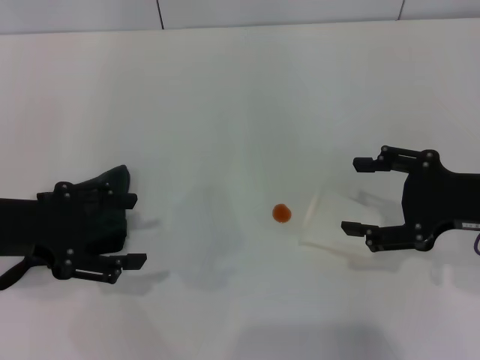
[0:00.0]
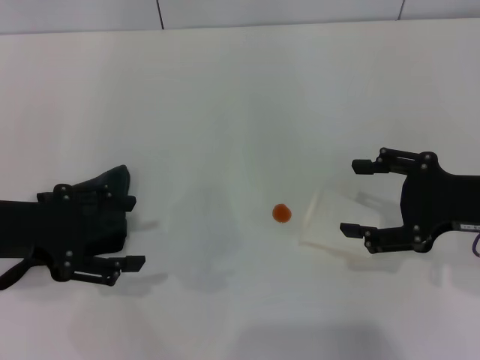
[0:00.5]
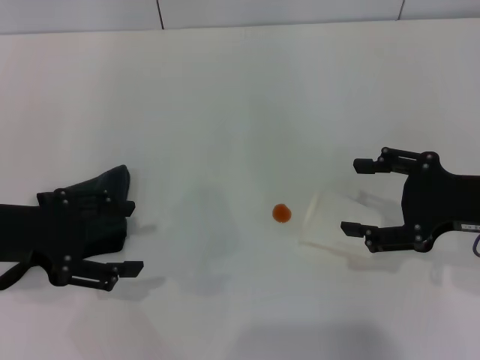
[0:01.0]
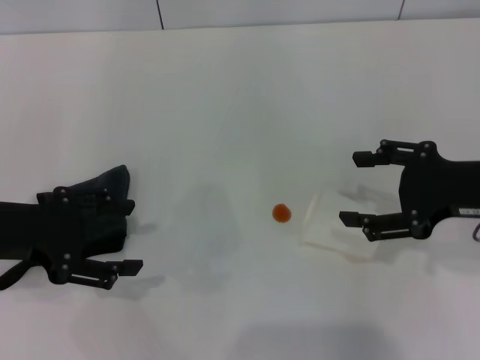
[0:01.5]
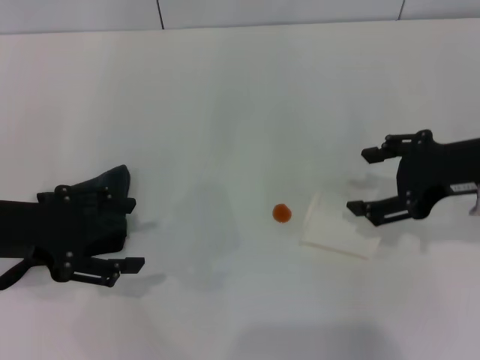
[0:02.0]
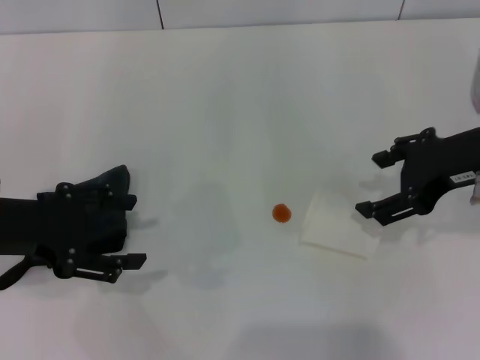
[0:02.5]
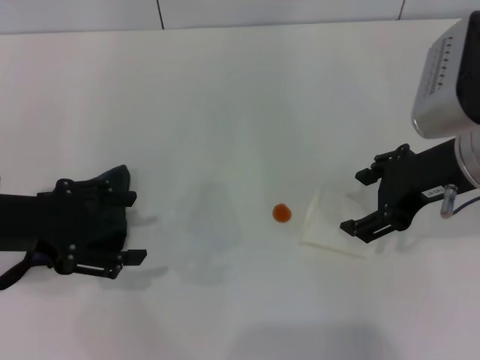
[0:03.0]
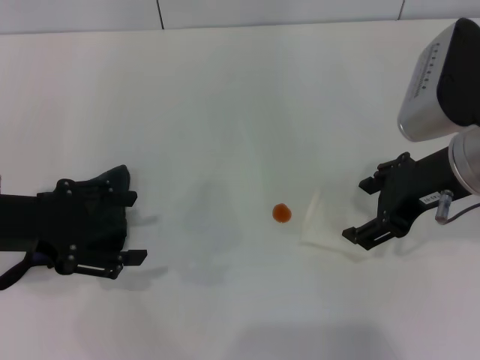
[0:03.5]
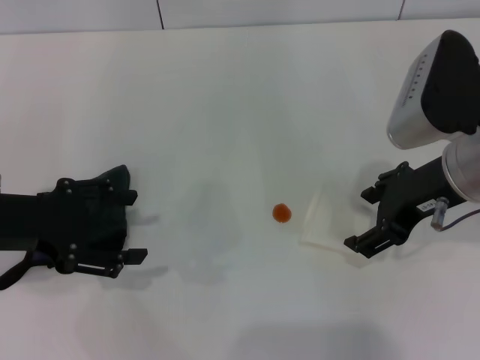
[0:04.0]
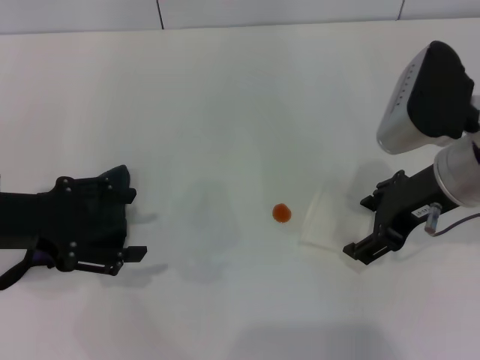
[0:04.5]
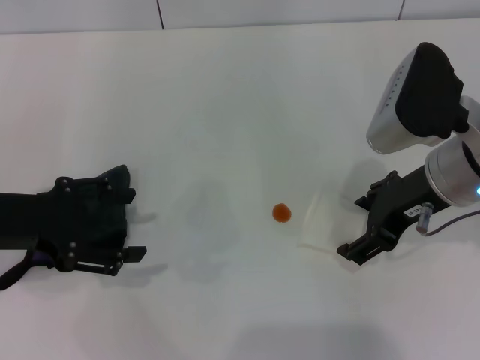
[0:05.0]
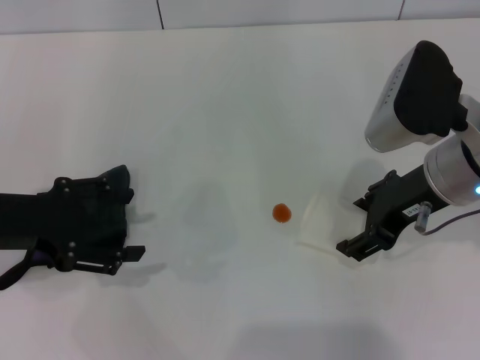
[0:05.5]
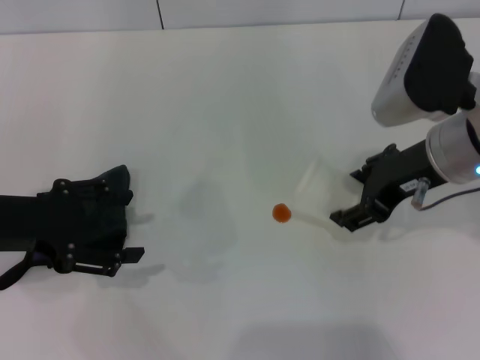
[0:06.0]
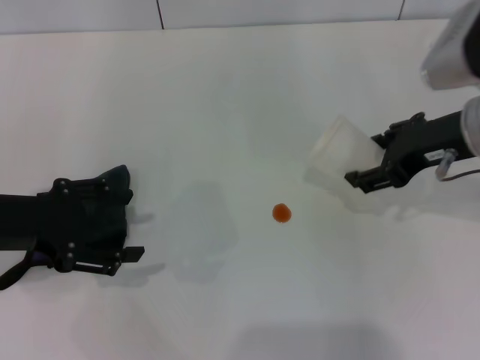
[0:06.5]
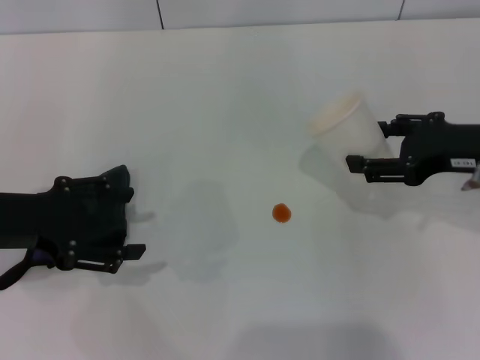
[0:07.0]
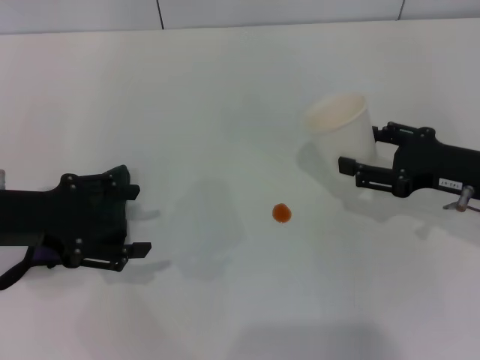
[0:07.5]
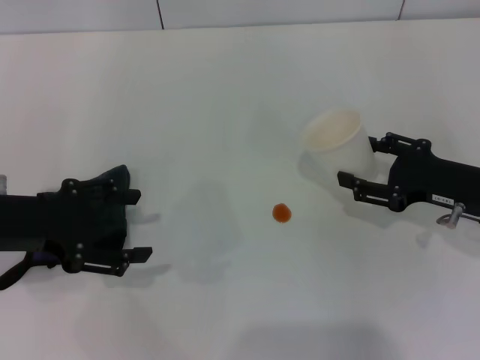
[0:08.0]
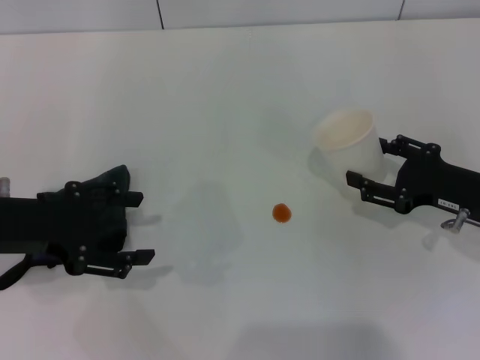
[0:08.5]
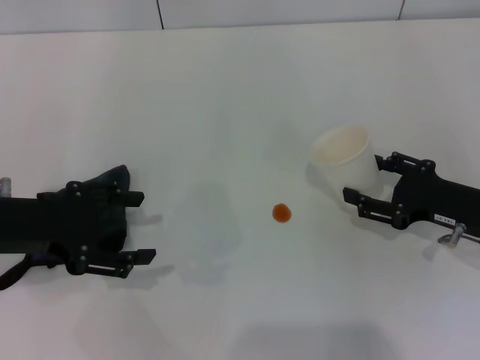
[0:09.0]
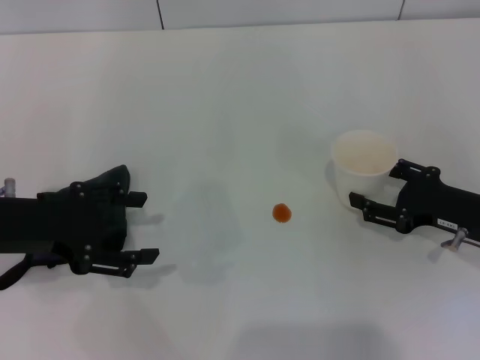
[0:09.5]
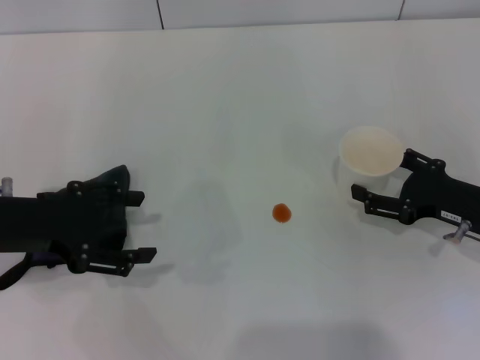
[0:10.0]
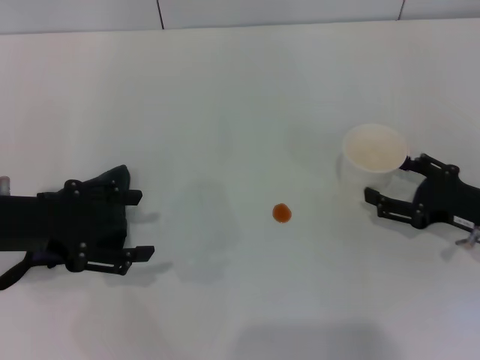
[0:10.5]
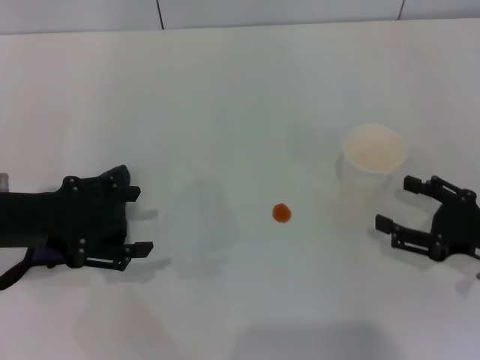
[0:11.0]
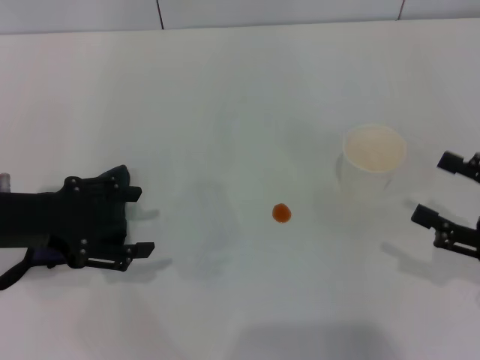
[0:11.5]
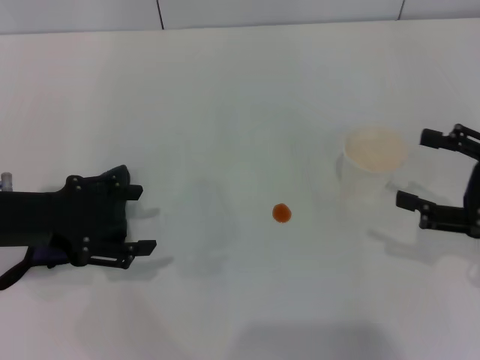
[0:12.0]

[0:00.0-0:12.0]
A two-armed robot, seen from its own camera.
Step, 0:00.0 to 0:05.0: Grasp the paper cup with the right gripper.
Step, 0:05.5 to 0:10.5: Stand the paper cup upright with the right gripper.
0:00.0 to 0:02.0: The right gripper changes place by some 5 cm.
0:02.0 to 0:04.0: The right gripper heads to the left, covering about 5 cm.
0:04.0 to 0:06.0: The right gripper closes.
0:06.0 to 0:08.0: The right gripper moves downward and to the right, some 15 cm.
0:08.0 to 0:10.0: The right gripper opens.
0:10.0 to 0:12.0: The right gripper travels upward and backward by some 10 cm, and opens its fingers.

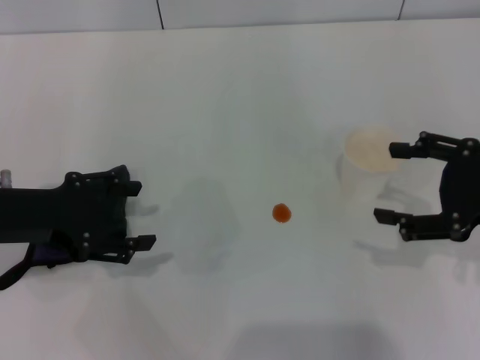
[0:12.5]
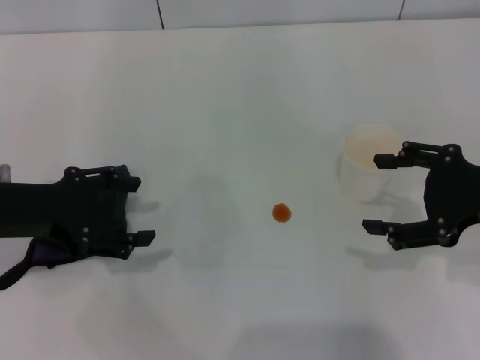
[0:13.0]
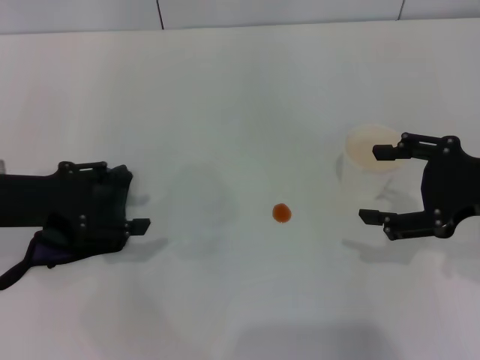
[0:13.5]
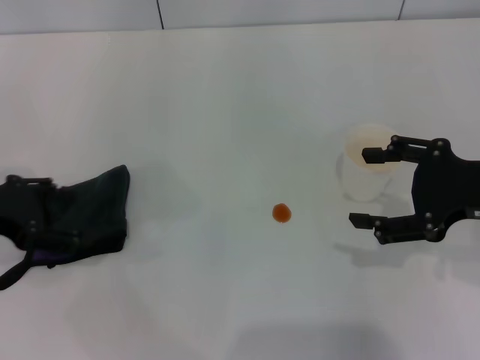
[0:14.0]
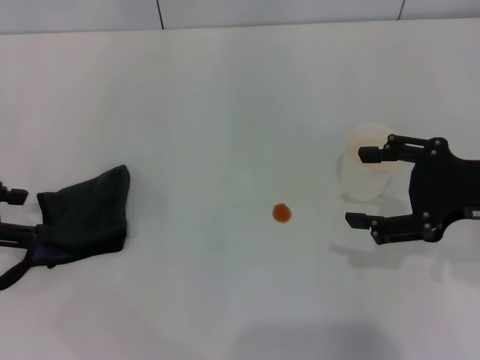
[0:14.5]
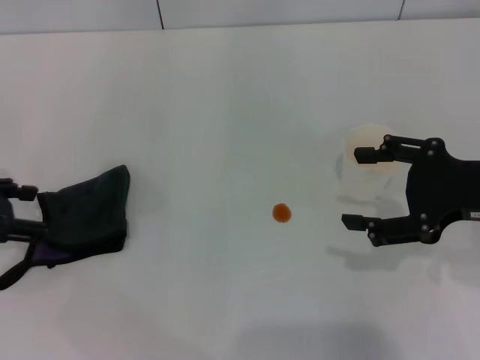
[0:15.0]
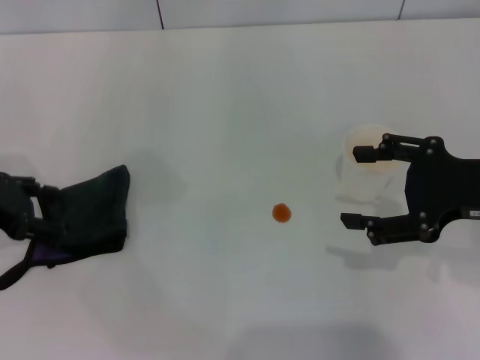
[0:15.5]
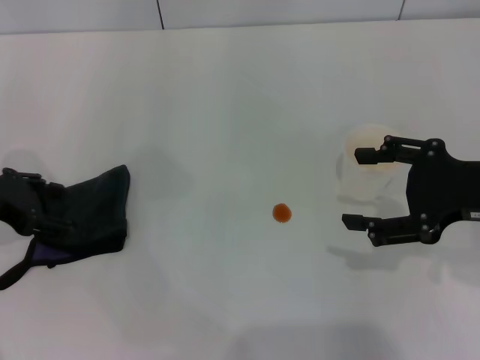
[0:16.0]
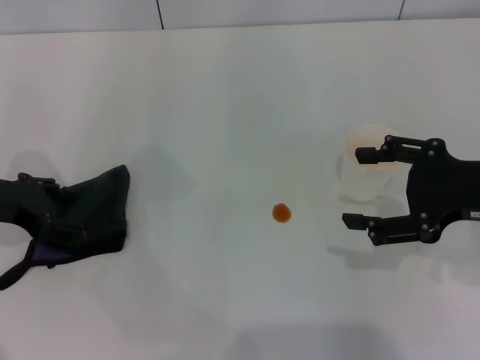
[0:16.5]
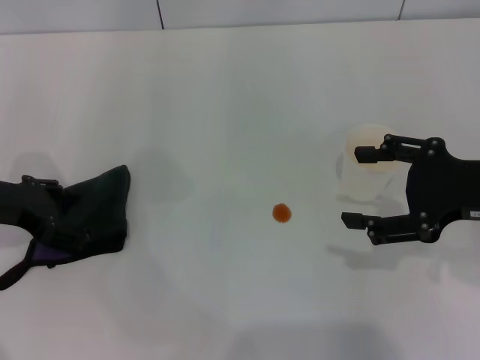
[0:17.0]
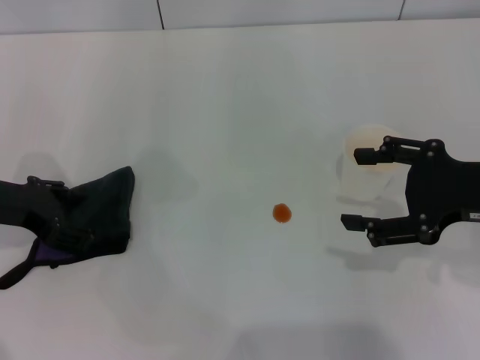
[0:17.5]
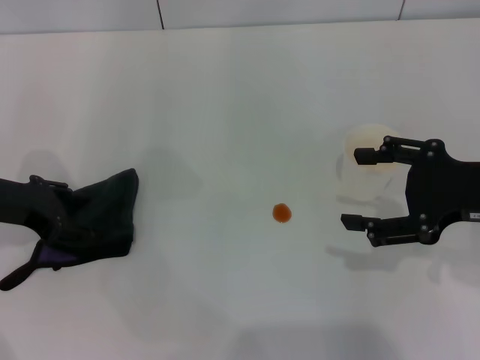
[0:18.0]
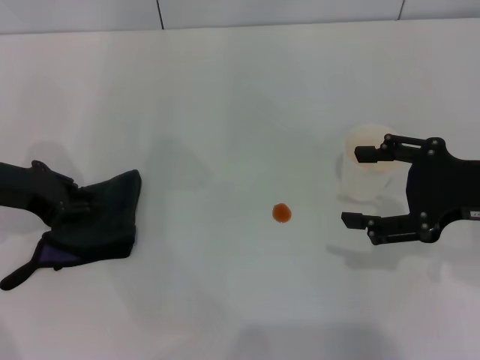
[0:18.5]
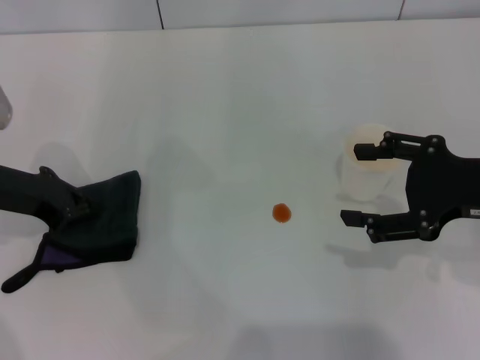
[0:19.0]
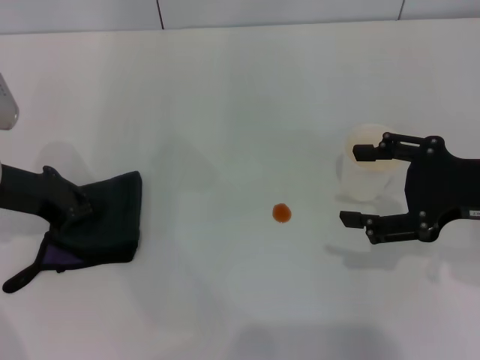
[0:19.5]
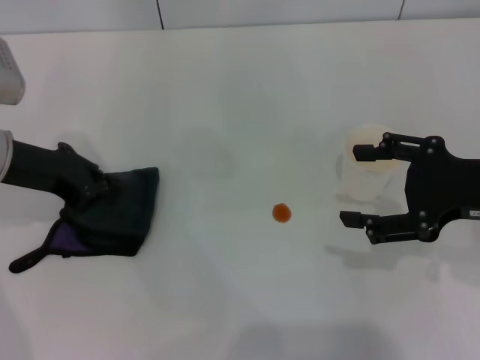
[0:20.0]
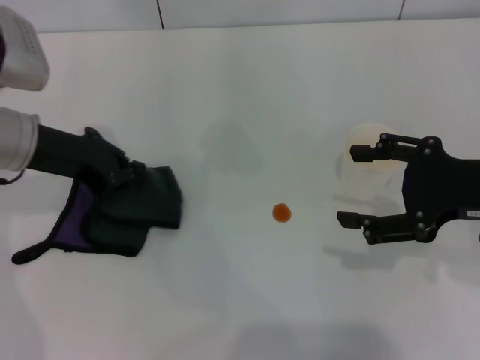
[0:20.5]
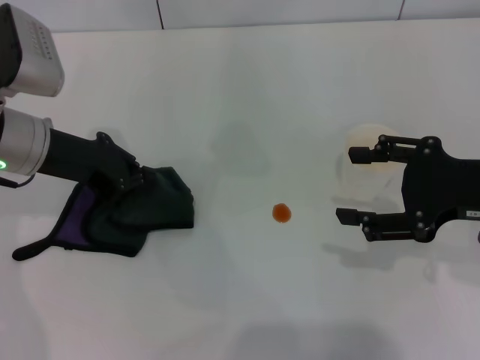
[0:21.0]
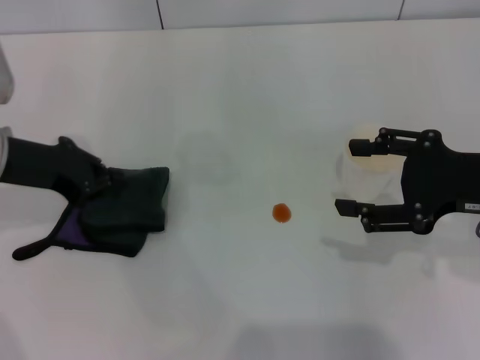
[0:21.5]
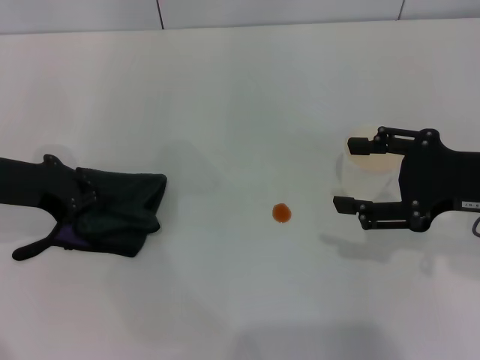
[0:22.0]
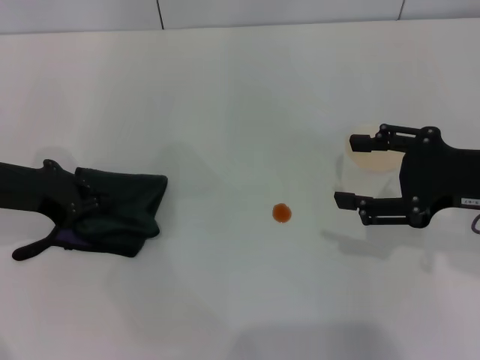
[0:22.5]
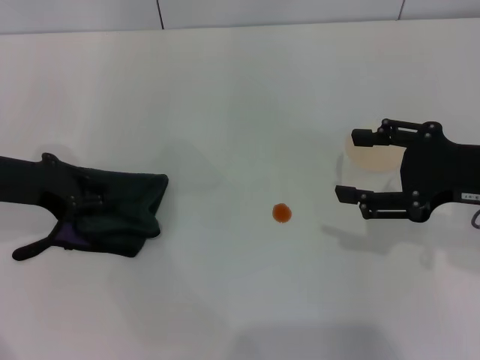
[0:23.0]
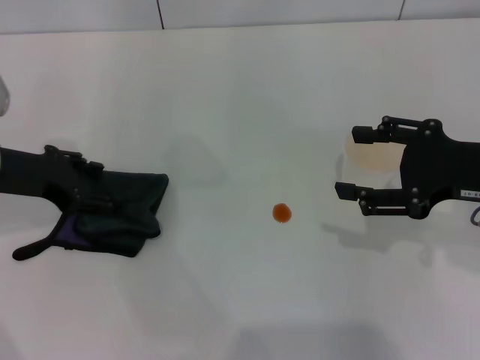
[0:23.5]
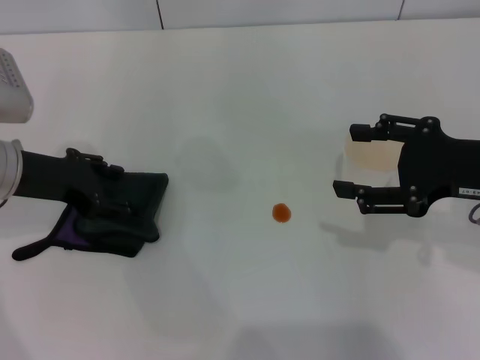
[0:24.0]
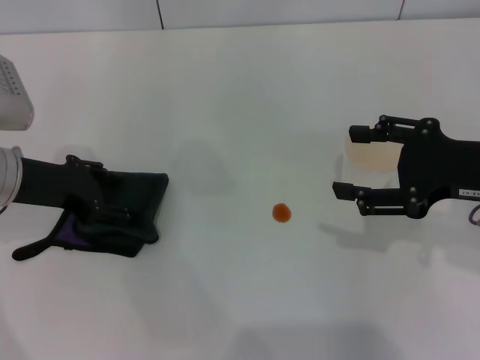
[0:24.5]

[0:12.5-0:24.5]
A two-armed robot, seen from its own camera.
0:12.5 to 0:14.5: The left gripper shifts about 10 cm to the left.
0:14.5 to 0:16.5: The left gripper ends up about 5 cm from where it was.
0:16.5 to 0:18.5: The left gripper closes.
0:18.5 to 0:20.5: The left gripper shifts approximately 5 cm to the right, and closes.
0:20.5 to 0:22.5: The right gripper closes its fingers; the left gripper ends up about 5 cm from where it was.
0:22.5 to 0:24.5: The left gripper opens.

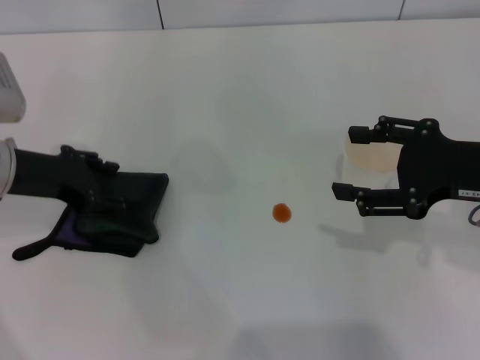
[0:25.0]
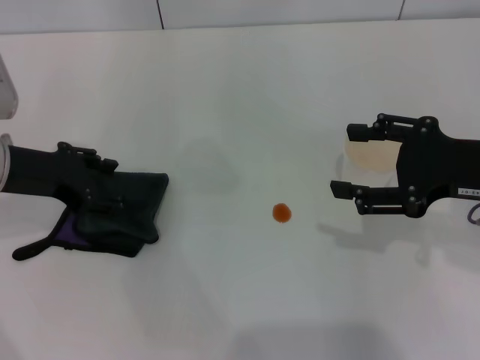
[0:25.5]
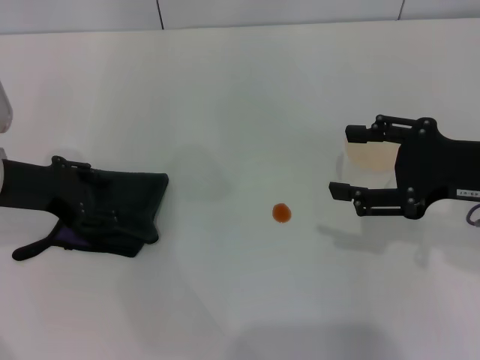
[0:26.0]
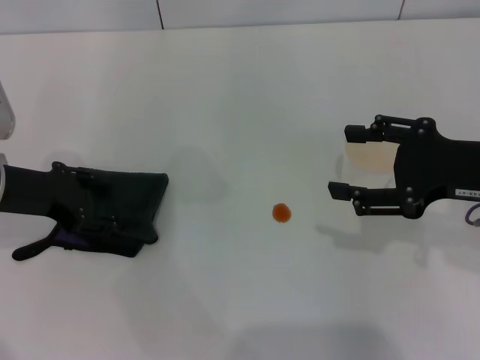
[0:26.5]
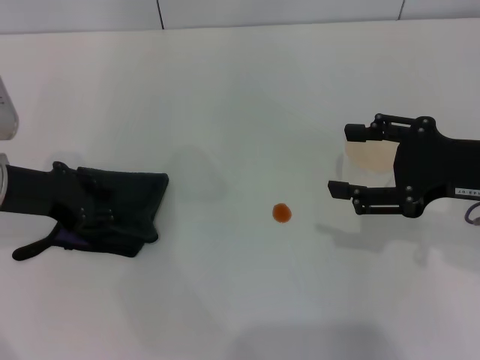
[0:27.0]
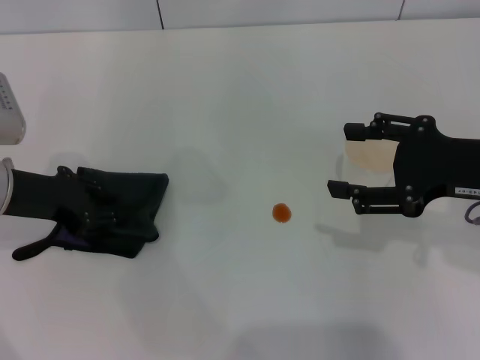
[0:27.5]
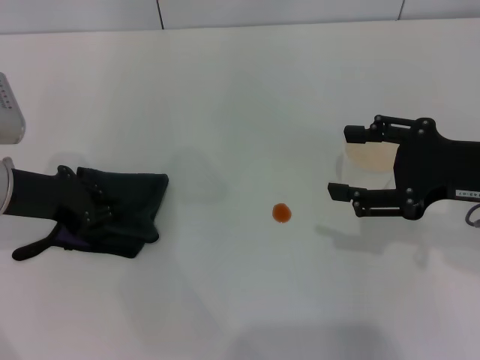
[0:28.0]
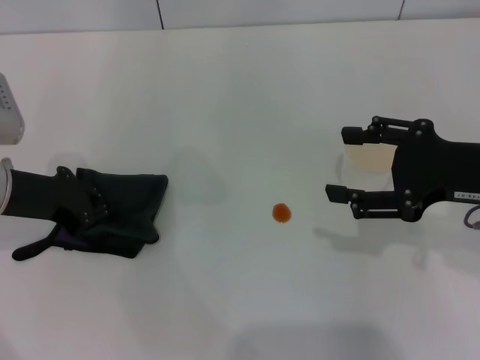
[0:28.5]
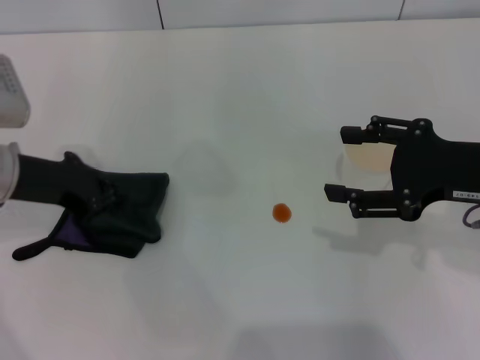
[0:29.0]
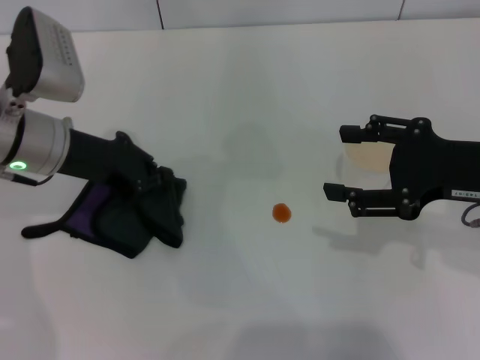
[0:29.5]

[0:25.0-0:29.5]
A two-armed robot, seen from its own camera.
Step, 0:25.0 to 0:29.0: Grasp the rag with the left gripper.
0:25.0 to 0:27.0: There are only small adjustments of the grippers.
0:27.0 to 0:29.5: The left gripper shifts approximately 5 cm to the right, and closes.
